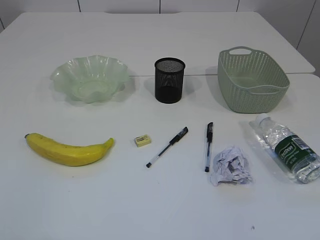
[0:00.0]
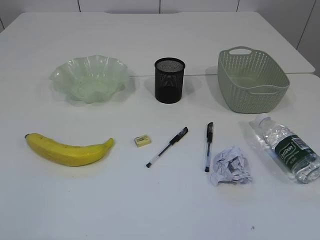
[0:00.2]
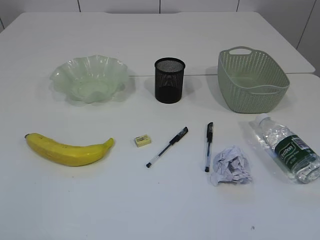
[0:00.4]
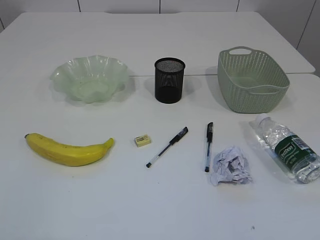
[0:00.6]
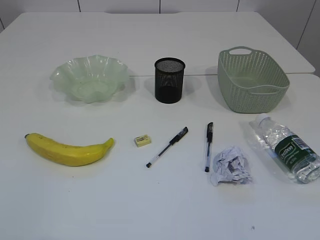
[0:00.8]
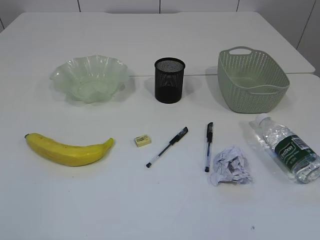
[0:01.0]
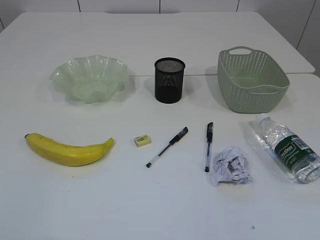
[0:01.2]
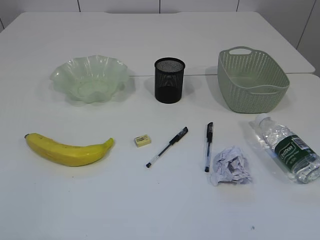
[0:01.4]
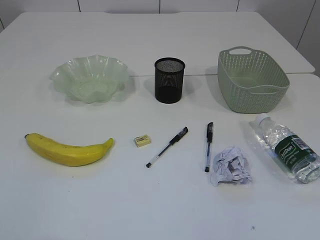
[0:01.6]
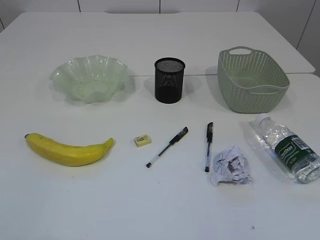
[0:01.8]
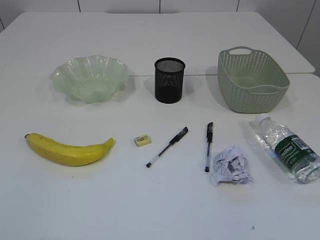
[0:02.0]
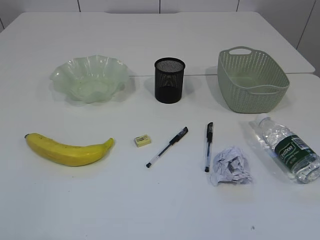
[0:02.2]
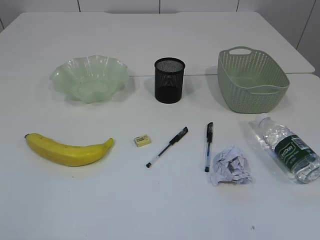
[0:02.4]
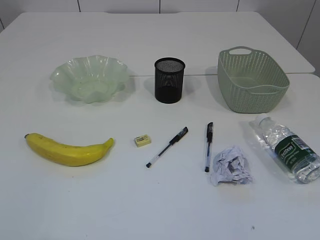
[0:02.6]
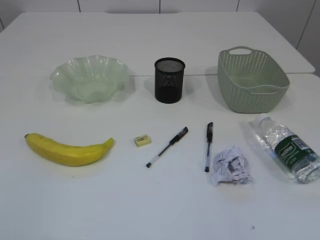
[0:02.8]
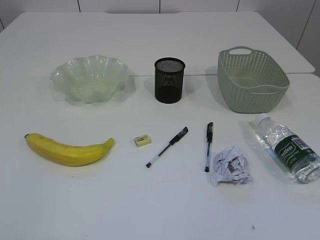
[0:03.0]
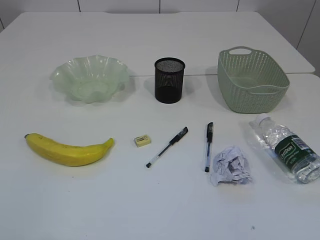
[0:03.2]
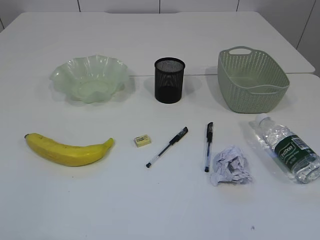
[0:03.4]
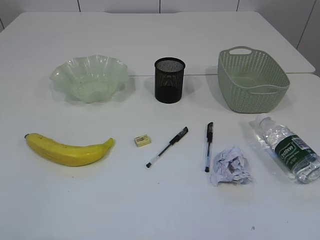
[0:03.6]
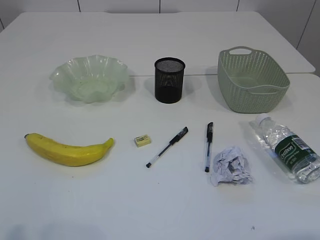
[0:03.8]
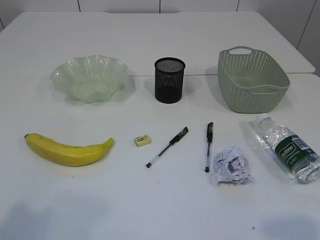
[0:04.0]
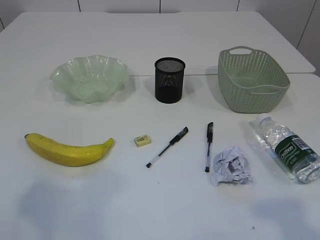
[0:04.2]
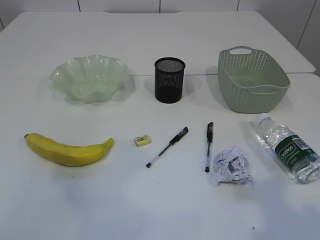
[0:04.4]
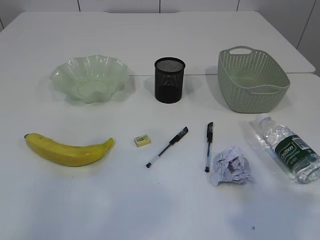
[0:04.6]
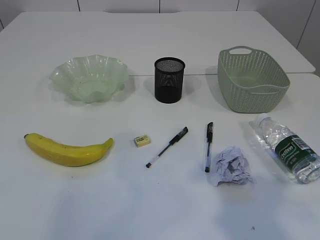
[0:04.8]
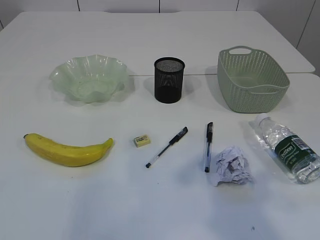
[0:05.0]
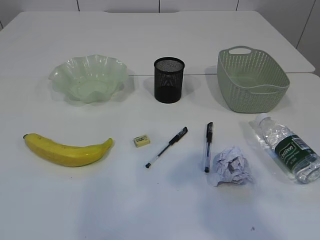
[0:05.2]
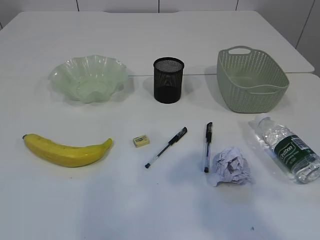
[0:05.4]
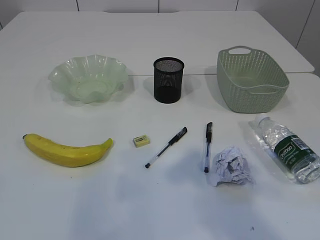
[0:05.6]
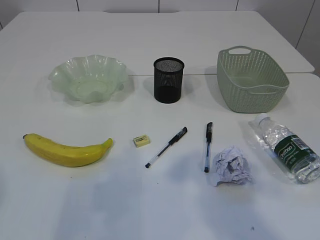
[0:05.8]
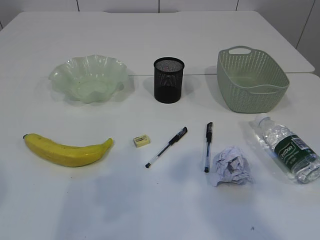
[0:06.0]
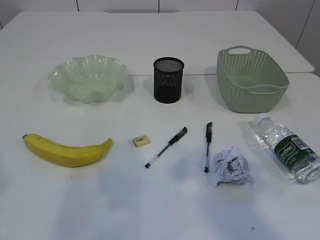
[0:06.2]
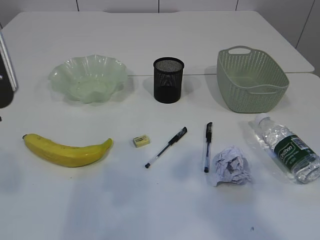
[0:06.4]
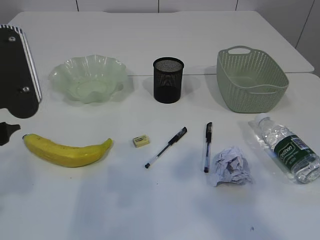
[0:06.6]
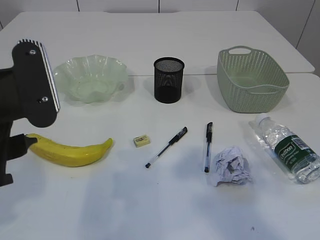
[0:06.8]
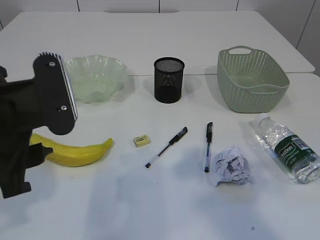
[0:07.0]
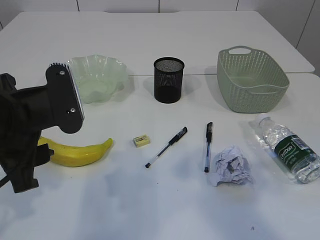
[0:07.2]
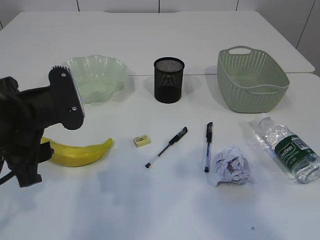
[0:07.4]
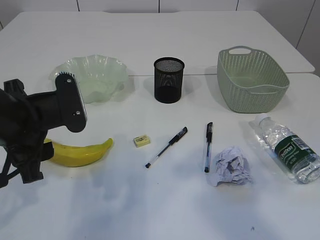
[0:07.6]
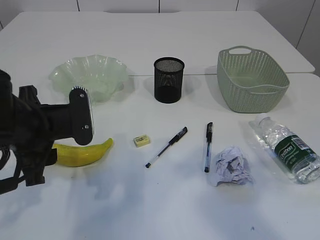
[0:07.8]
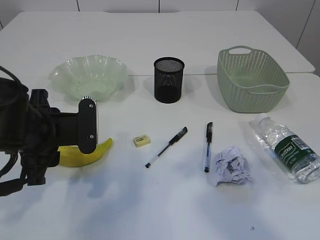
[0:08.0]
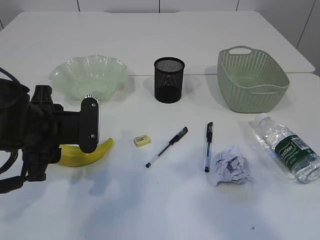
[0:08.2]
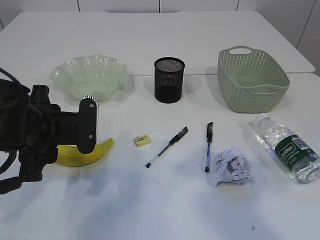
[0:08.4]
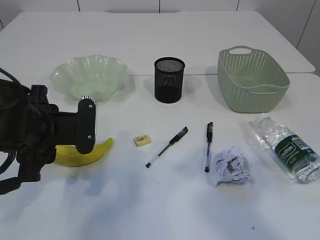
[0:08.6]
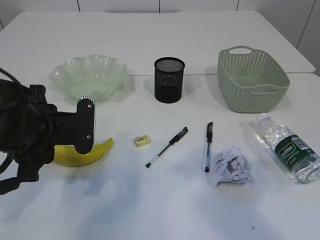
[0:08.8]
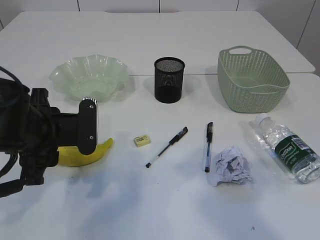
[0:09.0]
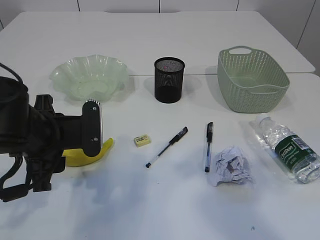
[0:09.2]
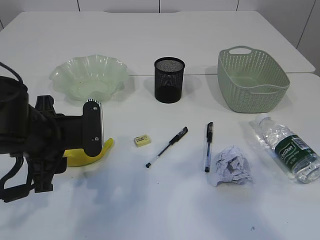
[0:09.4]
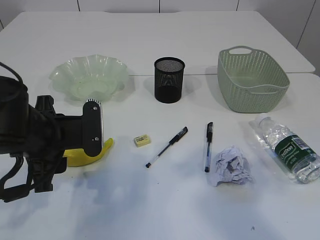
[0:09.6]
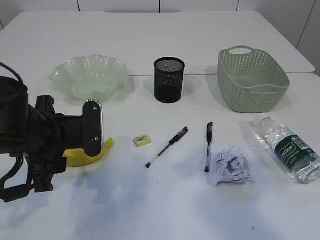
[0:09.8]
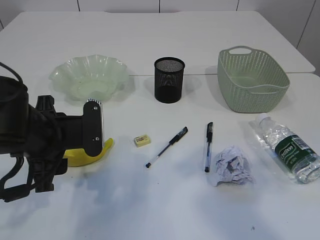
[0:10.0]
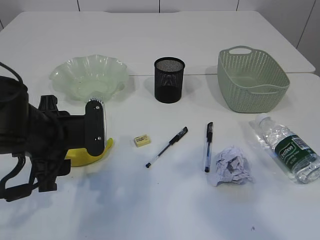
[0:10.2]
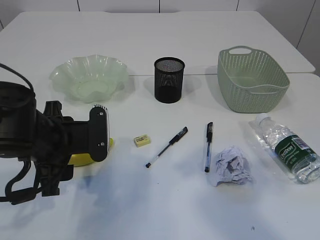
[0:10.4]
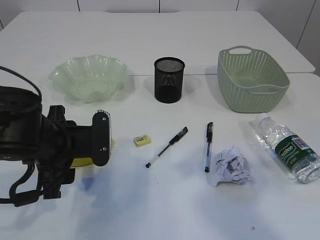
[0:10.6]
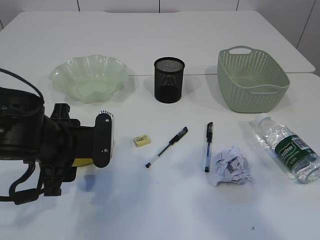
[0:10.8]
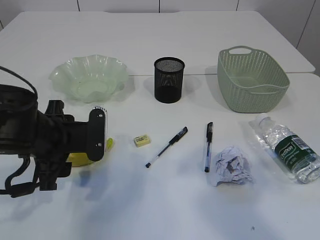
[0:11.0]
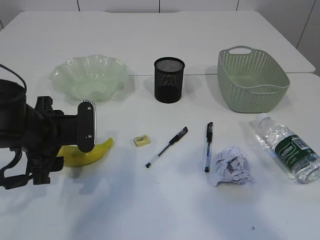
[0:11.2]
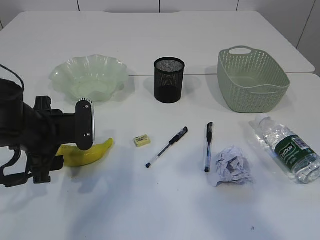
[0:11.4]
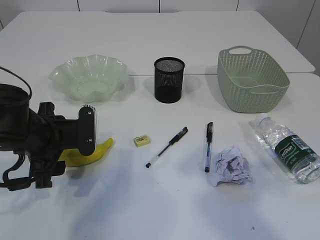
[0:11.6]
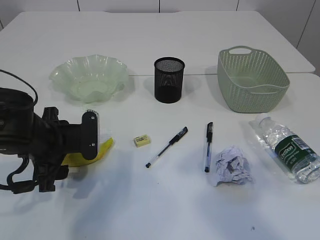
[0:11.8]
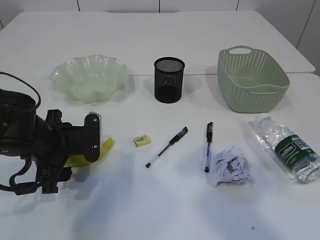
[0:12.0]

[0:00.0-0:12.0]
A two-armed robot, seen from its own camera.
0:01.6 to 0:03.0: Neither gripper changes place.
0:03.0 to 0:04.4: Both grippers move forward and upward, roughly 15 cm.
0:04.4 to 0:06.0: The right gripper shifts about 10 cm forward and to the left. The left gripper heads to the right, covering some 10 cm.
0:06.0 to 0:07.6: The left gripper travels downward and forward by roughly 15 cm.
0:07.6 to 0:10.4: The grippers make only small movements.
0:10.4 to 0:12.0: The left gripper moves roughly 5 cm.

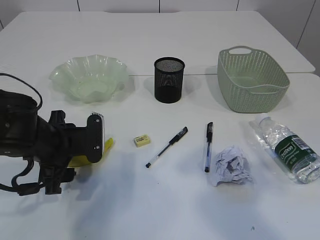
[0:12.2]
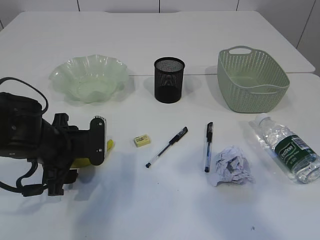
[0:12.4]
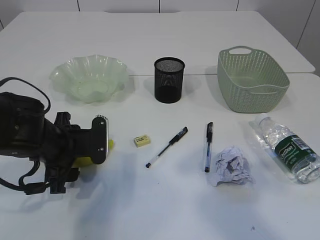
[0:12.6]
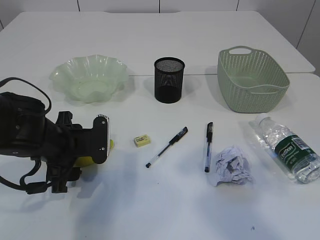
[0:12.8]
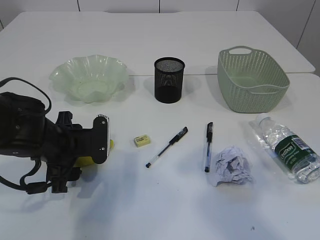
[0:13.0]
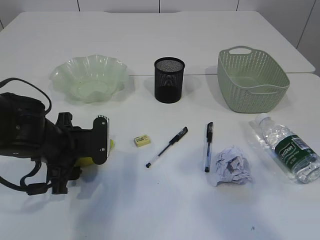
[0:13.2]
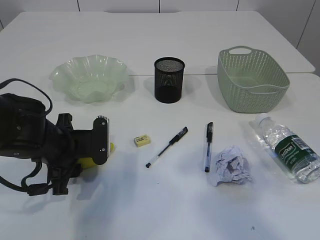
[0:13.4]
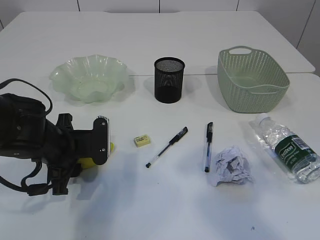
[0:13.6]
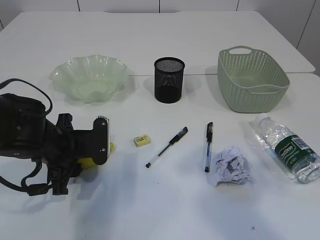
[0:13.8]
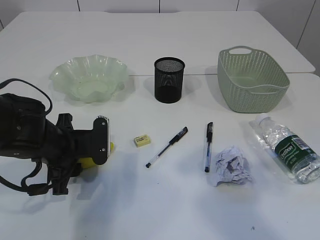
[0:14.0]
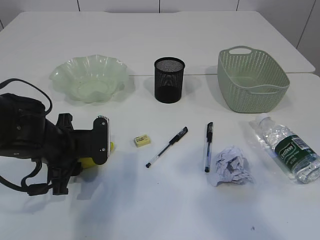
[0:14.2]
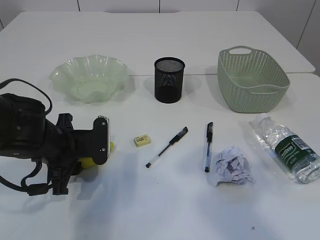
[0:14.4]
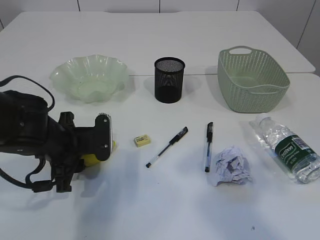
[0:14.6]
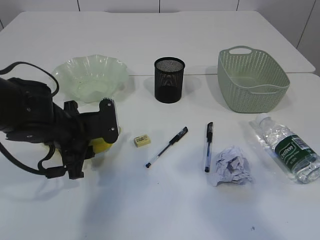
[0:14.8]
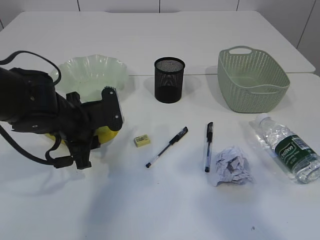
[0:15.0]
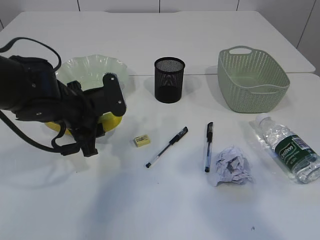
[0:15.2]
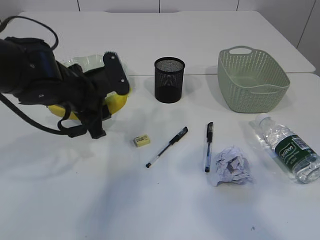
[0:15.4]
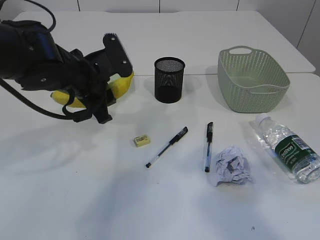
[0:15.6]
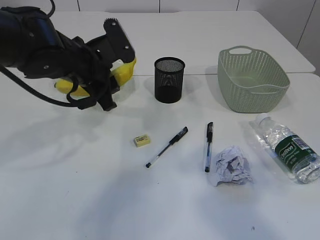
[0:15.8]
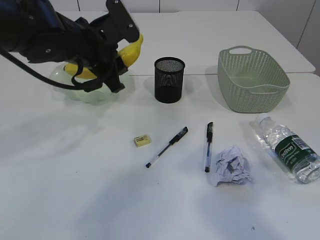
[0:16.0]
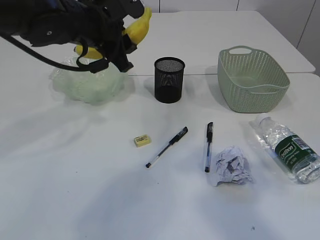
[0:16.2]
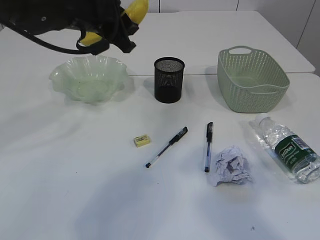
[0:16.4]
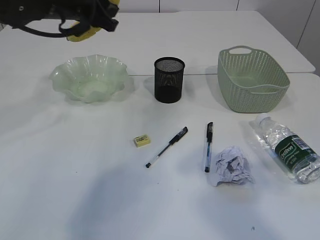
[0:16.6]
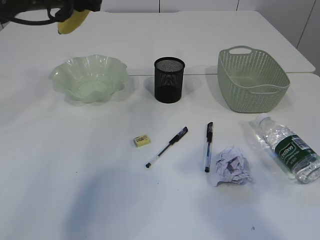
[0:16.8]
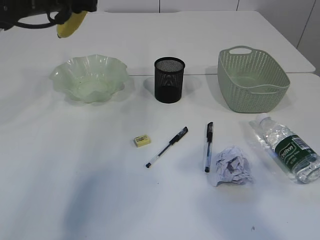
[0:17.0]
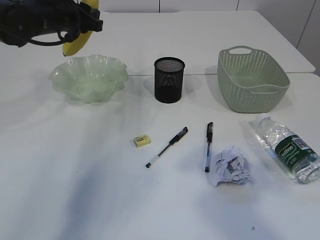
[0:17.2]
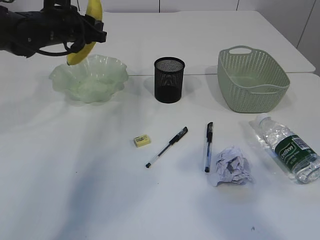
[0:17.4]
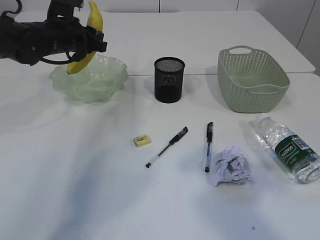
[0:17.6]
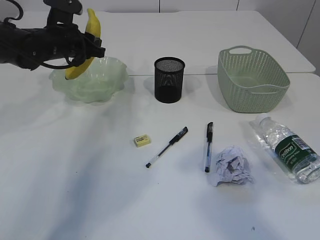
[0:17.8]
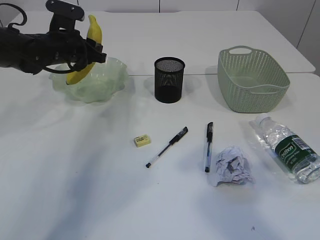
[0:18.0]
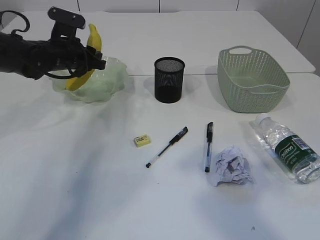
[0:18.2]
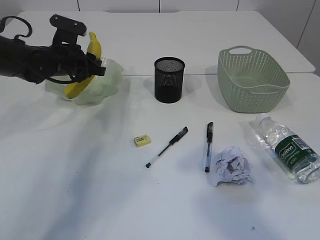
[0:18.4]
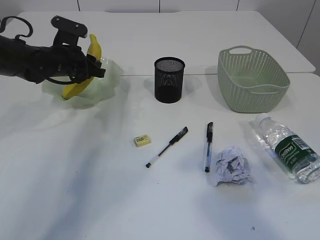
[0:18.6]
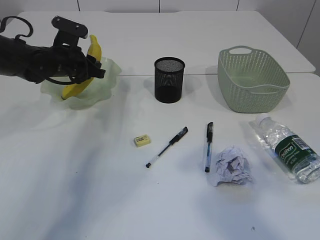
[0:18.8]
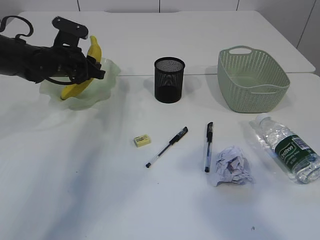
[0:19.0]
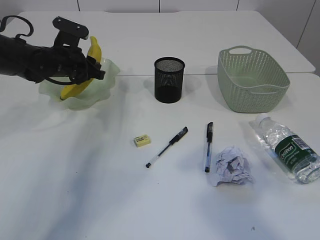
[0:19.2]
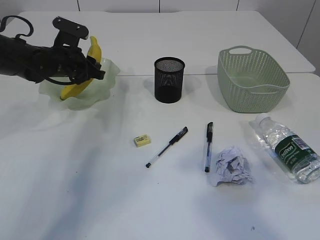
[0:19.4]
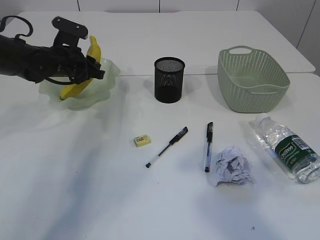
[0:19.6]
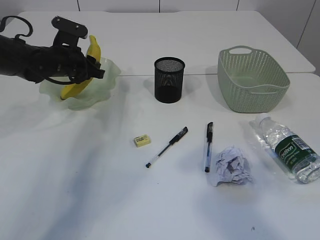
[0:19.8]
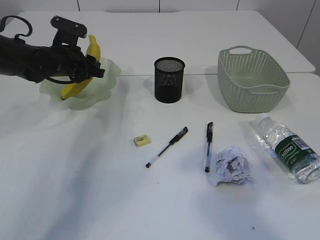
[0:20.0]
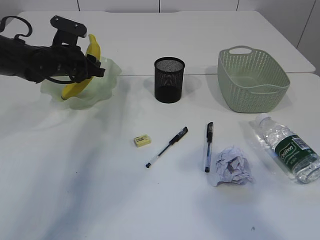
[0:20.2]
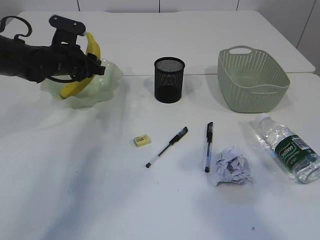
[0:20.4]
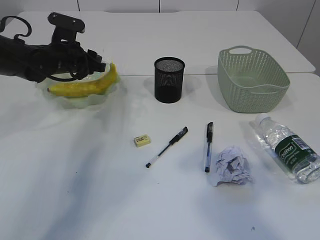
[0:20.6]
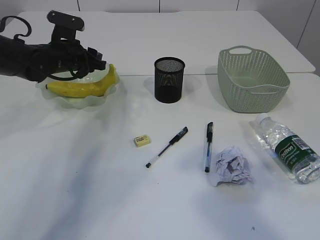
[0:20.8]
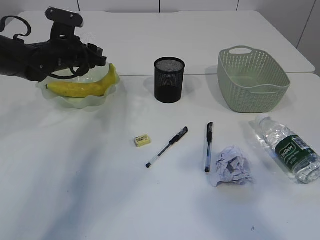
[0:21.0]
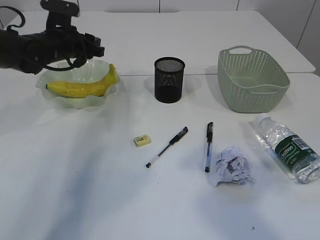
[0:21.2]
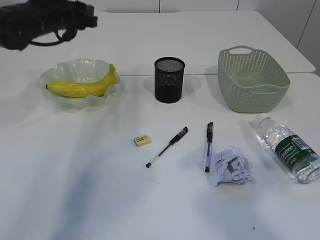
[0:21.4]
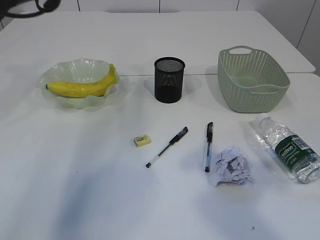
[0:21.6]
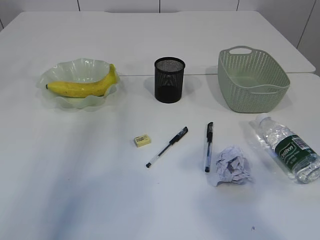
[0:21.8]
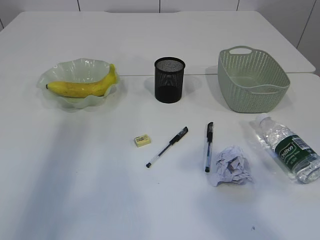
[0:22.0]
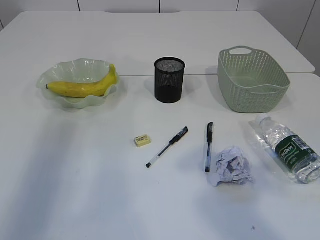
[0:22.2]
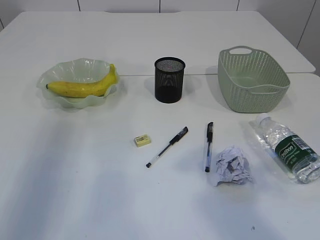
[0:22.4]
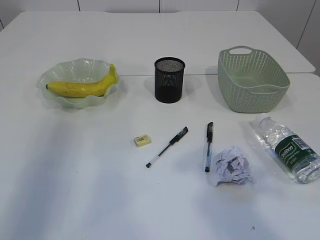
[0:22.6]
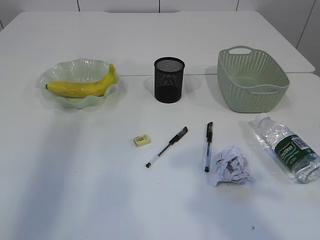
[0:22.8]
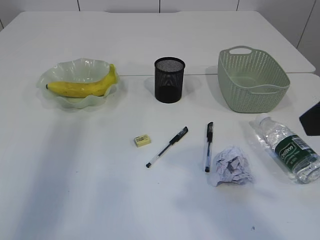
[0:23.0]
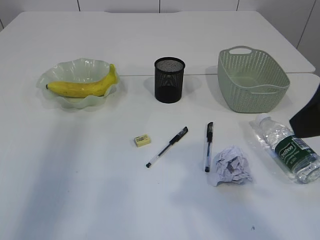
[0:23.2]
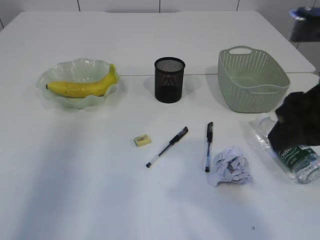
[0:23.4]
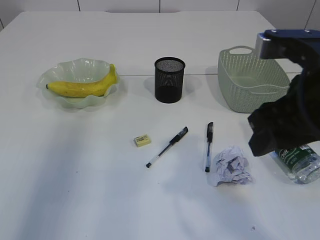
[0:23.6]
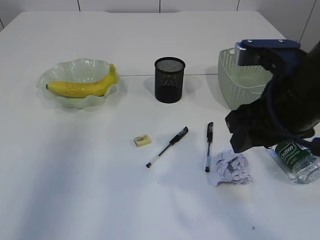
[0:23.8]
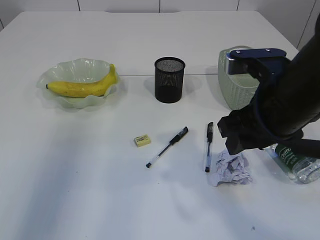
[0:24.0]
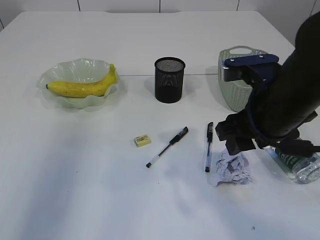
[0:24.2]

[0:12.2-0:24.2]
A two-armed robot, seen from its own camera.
Step, 0:15.2 to 0:21.2: Place the banana in the plate.
0:12.2 to 0:13.8: There are only small adjustments of the grippers.
0:13.8 to 0:15.2: The left gripper changes place by approximately 5 cm.
0:15.2 to 0:16.6: The left gripper shifts roughly 15 cm upward and forward.
0:16.6 to 0:18.2: The left gripper heads downward, forward and to the left, covering roughly 15 cm.
0:18.2 to 0:21.2: The grippers stay close to where they were, moving slightly.
0:21.2 to 0:22.6: The left gripper shifts about 35 cm upward, to the left and backward.
0:22.6 to 0:24.2: The right gripper is displaced downward, forward and to the left by approximately 15 cm.
